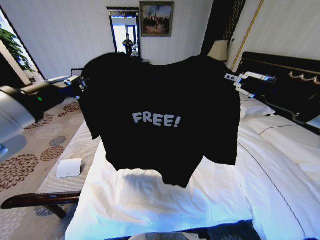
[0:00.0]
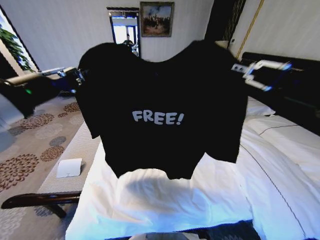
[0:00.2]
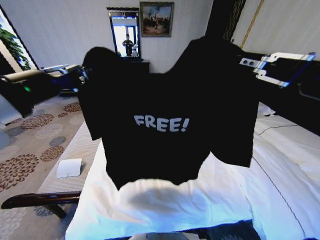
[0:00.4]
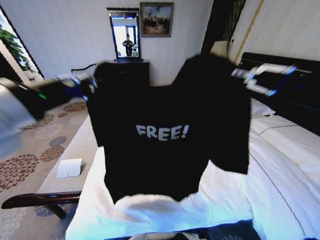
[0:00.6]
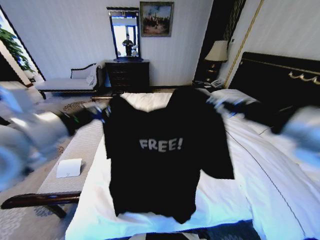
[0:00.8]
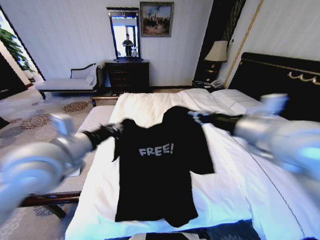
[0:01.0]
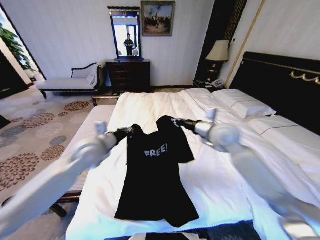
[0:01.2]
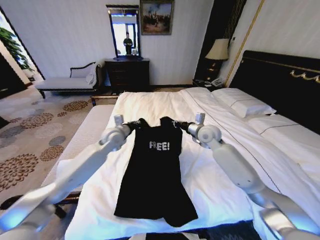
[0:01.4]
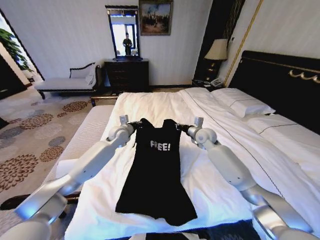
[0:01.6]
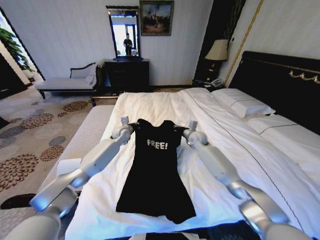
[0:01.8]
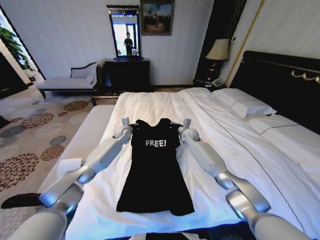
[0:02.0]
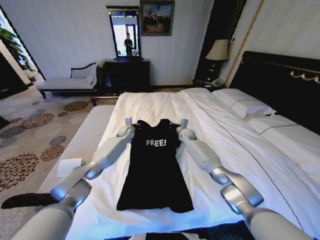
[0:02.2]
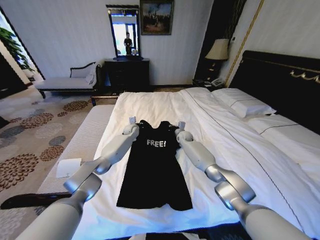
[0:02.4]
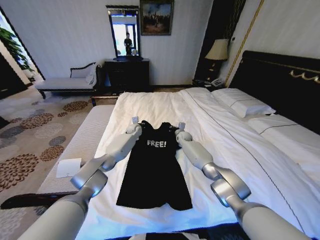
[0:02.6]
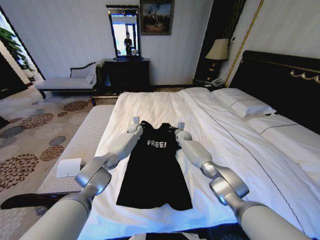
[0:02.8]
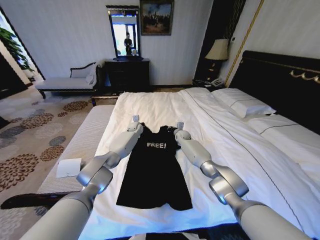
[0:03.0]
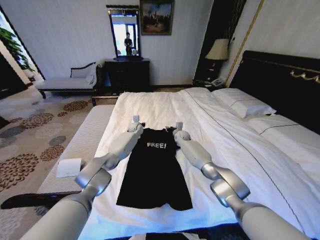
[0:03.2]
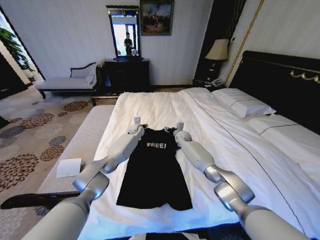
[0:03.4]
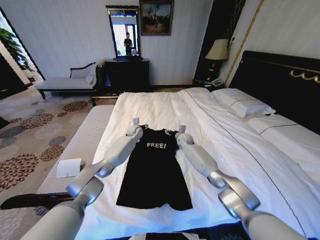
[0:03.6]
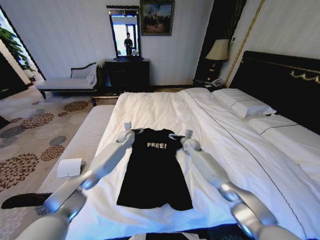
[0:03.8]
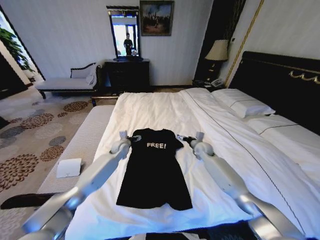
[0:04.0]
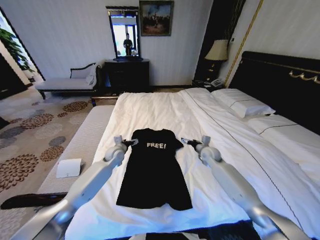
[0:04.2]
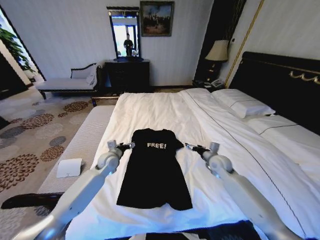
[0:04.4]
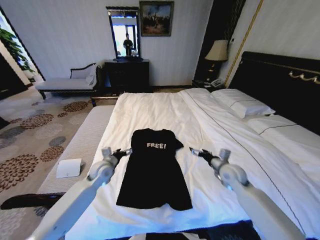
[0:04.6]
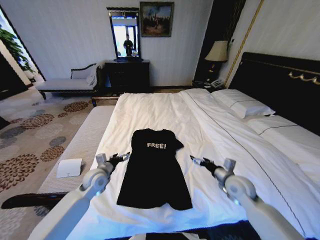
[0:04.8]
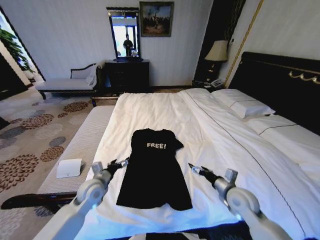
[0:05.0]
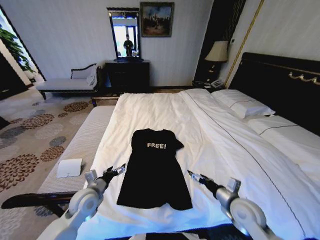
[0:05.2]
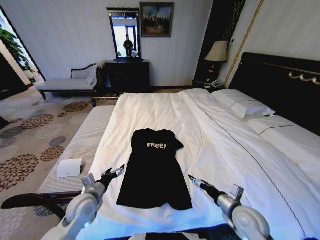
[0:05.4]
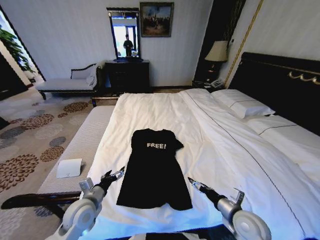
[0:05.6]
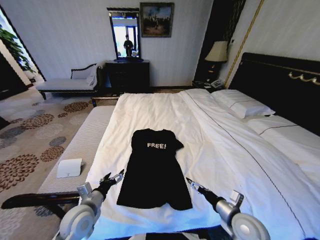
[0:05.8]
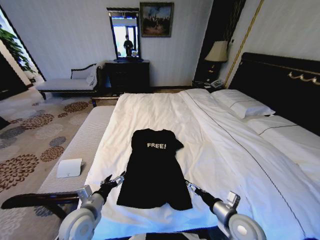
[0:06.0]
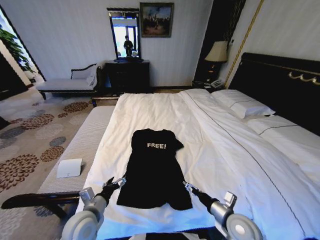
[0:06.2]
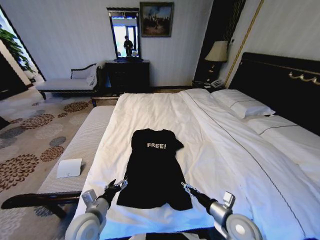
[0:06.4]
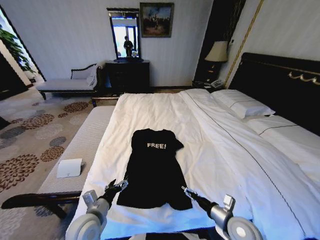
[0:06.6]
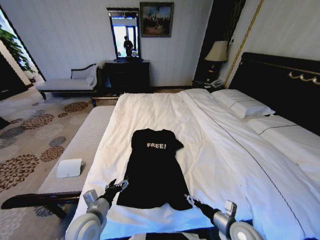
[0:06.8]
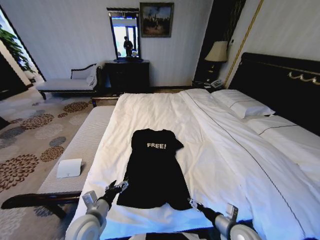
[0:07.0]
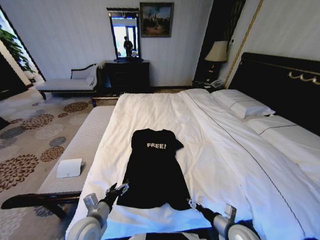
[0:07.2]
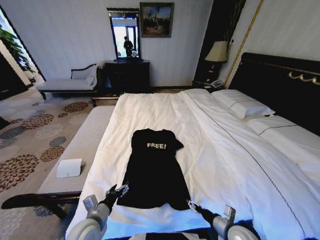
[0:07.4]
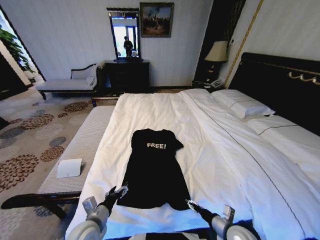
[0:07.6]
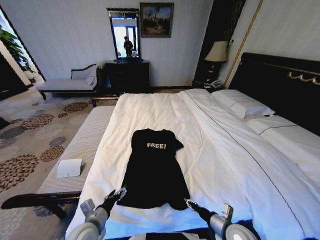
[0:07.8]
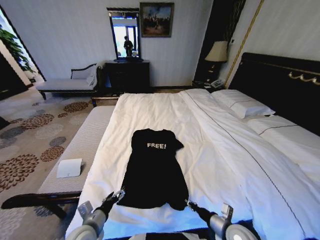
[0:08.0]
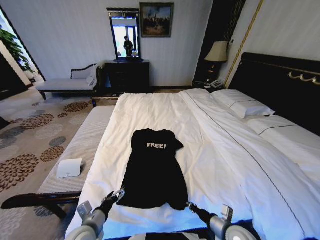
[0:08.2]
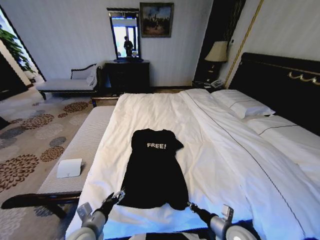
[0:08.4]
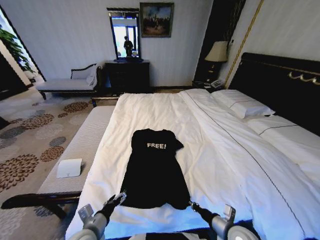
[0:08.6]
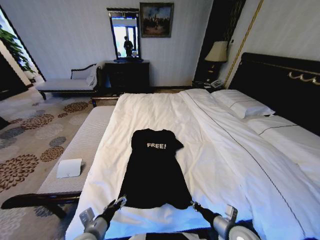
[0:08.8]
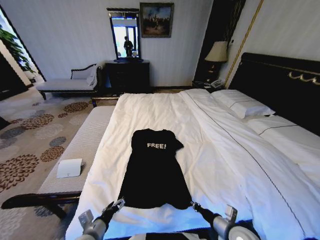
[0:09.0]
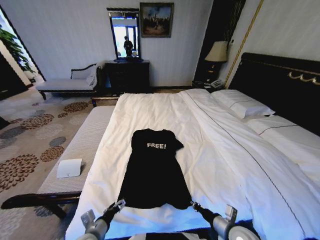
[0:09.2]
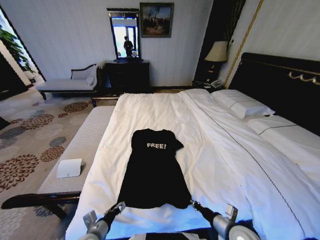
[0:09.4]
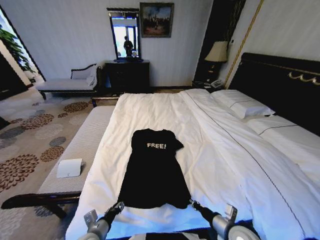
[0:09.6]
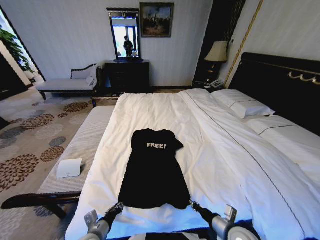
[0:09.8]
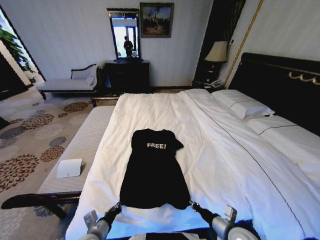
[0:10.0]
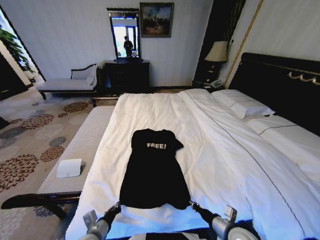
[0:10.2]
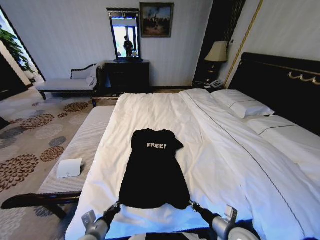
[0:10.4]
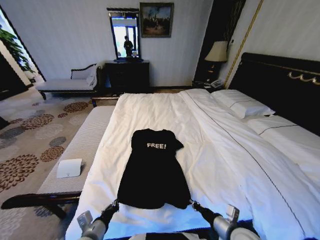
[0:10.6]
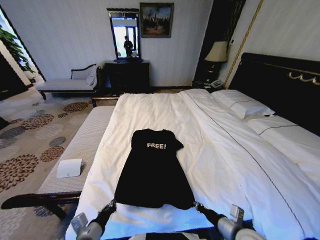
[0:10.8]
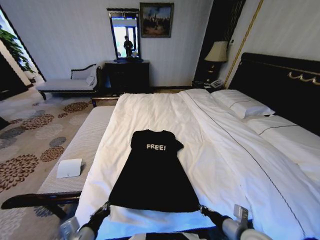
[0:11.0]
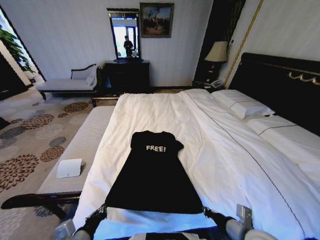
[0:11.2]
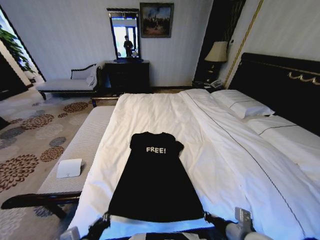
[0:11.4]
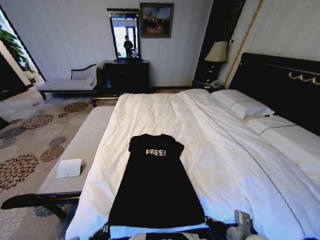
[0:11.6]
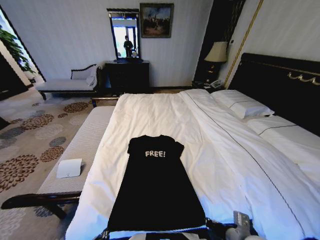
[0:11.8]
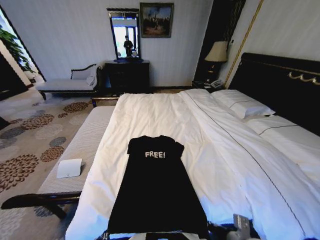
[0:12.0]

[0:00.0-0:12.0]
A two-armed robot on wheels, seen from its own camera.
Task of the whole recording: Fold the clothes on the bed.
0:00.0 to 0:01.6: Both grippers move forward and downward, roughly 40 cm.
0:01.6 to 0:03.0: The right gripper moves forward, downward and to the left, roughly 20 cm; the left gripper shifts approximately 15 cm forward, downward and to the right.
0:03.0 to 0:04.4: The left gripper is displaced backward and to the left by approximately 25 cm, and opens up; the right gripper goes approximately 25 cm backward and to the right, and opens up.
0:04.4 to 0:06.0: Both grippers move backward, roughly 25 cm.
0:06.0 to 0:07.6: The right gripper shifts about 5 cm downward.
0:07.6 to 0:09.0: The right gripper closes its fingers.
0:09.0 to 0:10.4: The left gripper closes its fingers.
0:10.4 to 0:12.0: The left gripper goes roughly 10 cm backward and upward. Meanwhile the right gripper is displaced upward by approximately 5 cm.

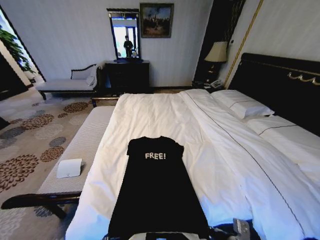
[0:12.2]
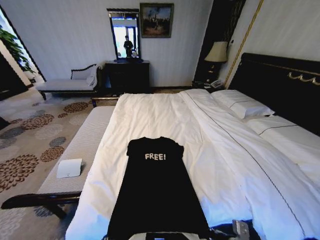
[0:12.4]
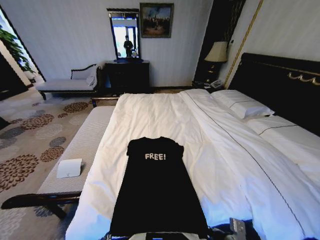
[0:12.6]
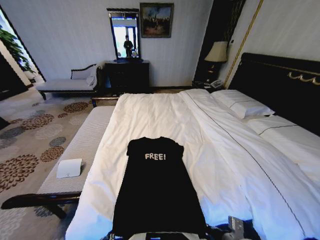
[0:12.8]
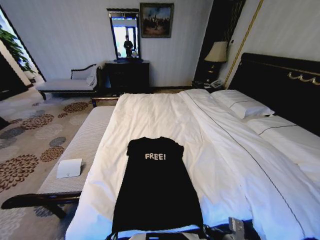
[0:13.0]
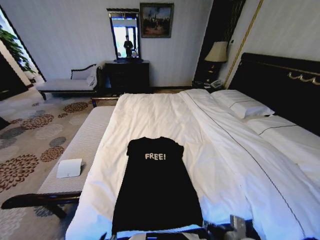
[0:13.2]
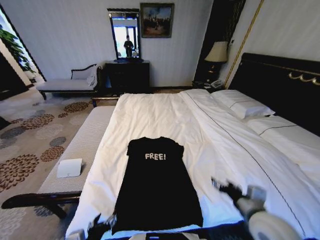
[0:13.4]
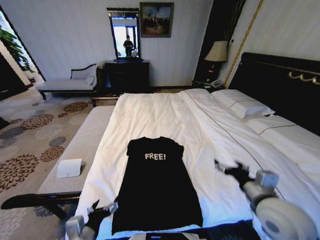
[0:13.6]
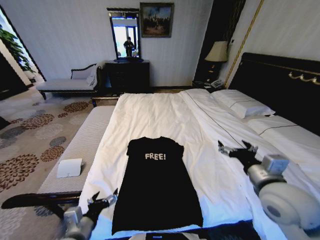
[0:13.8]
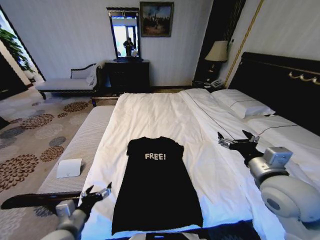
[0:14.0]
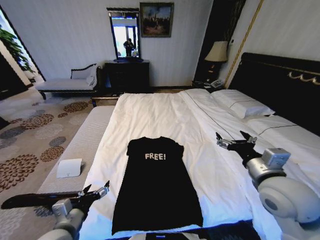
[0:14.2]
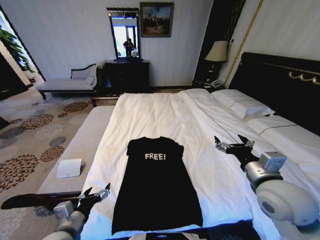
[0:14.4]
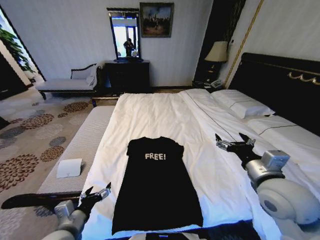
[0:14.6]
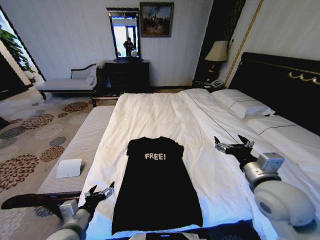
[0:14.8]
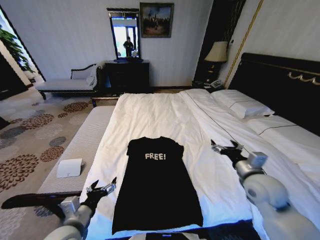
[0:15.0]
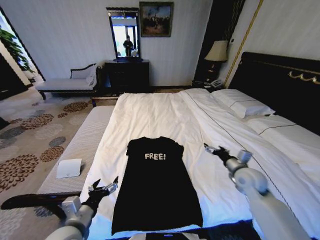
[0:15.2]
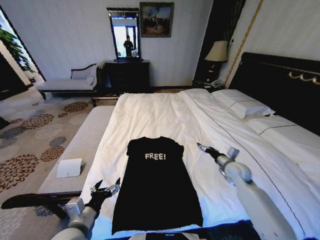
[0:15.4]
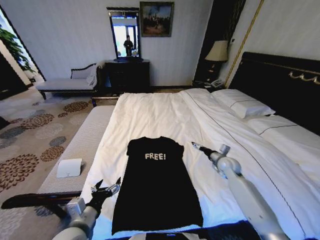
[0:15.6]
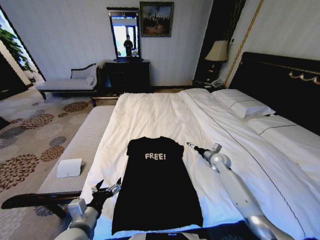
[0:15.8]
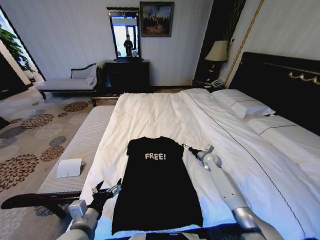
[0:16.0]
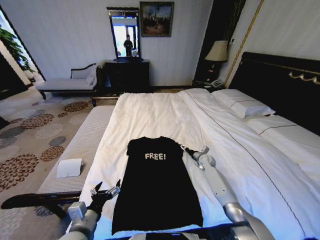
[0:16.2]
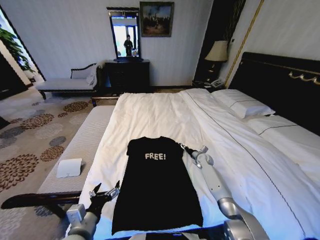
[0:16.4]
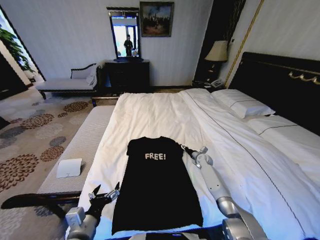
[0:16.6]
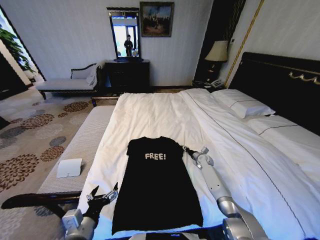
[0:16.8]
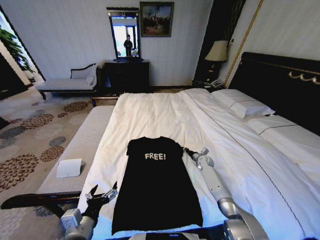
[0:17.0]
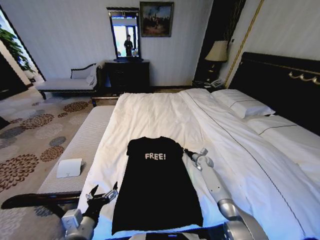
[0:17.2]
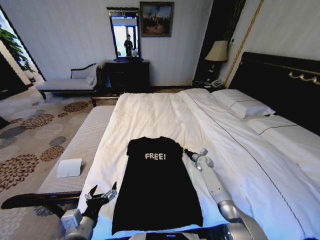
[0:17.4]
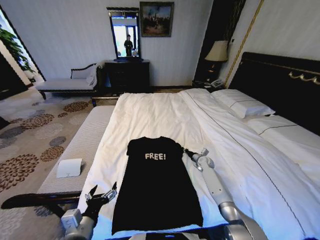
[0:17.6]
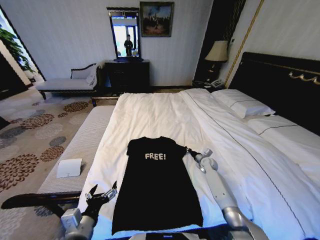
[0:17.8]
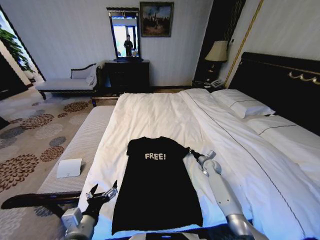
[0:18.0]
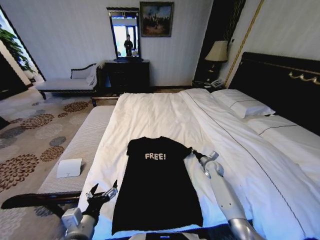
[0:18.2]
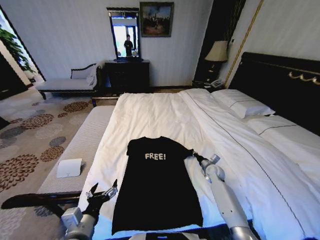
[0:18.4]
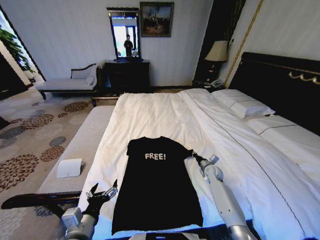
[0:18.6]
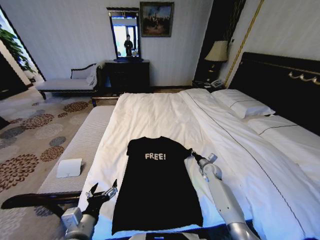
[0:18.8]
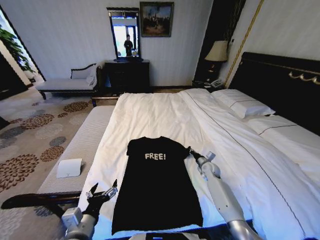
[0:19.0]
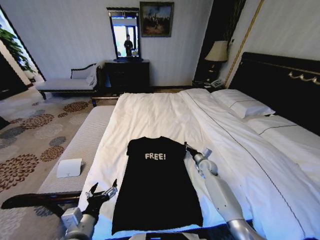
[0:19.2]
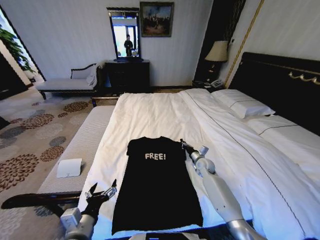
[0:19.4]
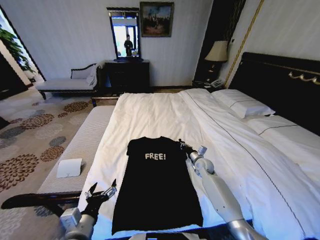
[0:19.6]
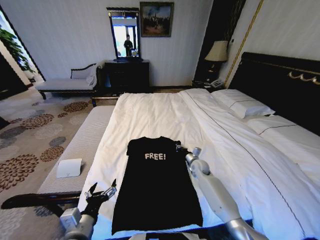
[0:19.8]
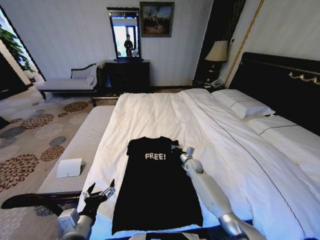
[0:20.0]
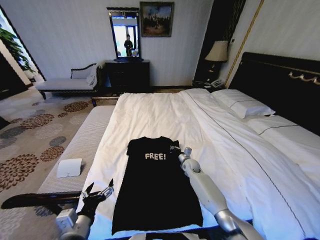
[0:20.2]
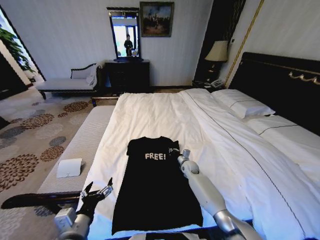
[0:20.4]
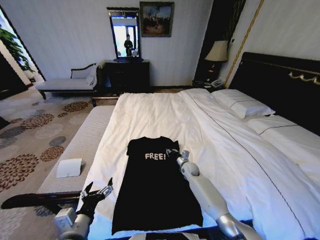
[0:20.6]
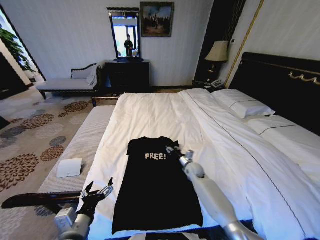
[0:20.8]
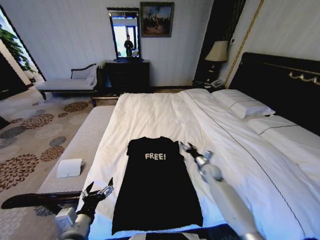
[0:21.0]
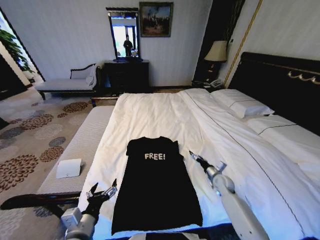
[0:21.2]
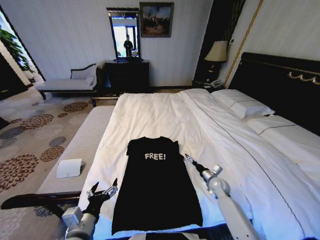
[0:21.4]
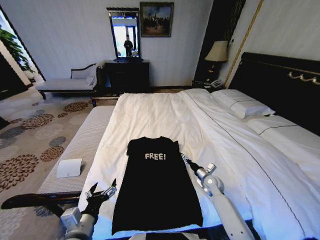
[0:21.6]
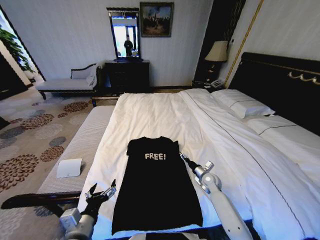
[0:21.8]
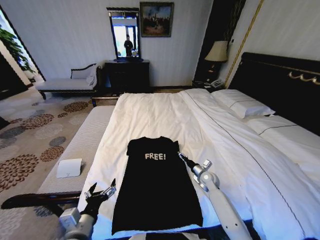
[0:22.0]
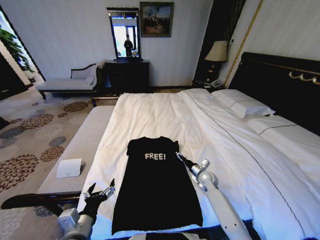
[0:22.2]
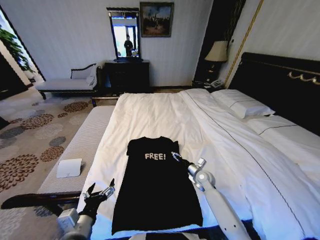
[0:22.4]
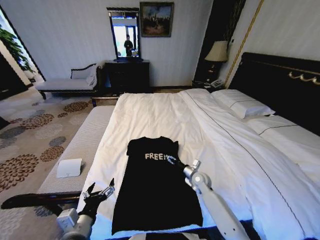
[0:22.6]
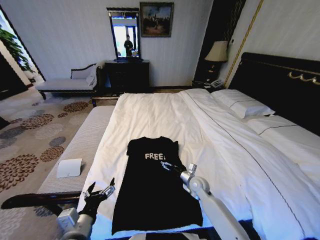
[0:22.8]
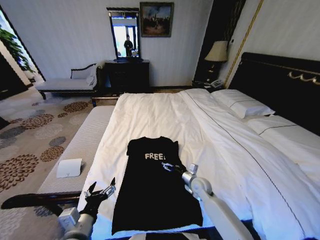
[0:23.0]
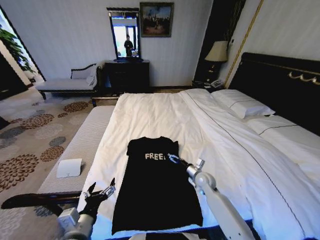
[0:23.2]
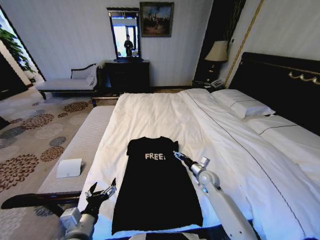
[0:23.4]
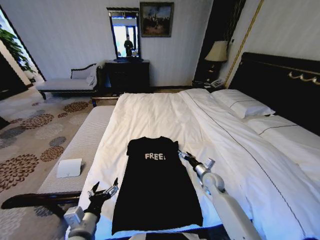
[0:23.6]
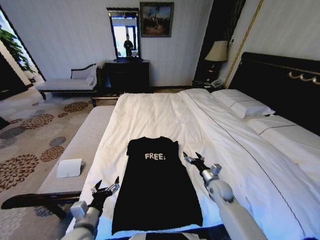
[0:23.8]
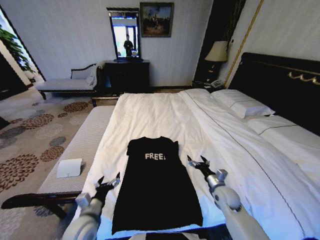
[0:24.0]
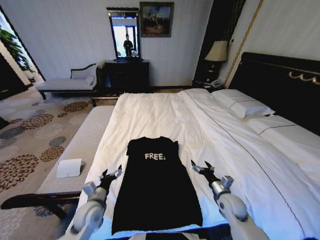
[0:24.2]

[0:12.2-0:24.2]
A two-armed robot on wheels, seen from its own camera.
Task of the whole recording: Fold the clothes on the bed.
0:12.2 to 0:13.8: The right gripper travels upward and forward by some 20 cm, and opens. Meanwhile the left gripper shifts about 10 cm forward, and opens.
0:13.8 to 0:15.2: The right gripper travels downward, forward and to the right by some 15 cm.
0:15.2 to 0:16.6: The right gripper heads forward and downward, covering some 25 cm.
0:16.6 to 0:18.2: The right gripper goes roughly 5 cm backward, and closes its fingers.
0:18.2 to 0:19.8: The right gripper travels to the left by about 10 cm.
0:19.8 to 0:21.2: The right gripper is displaced to the right and backward by approximately 15 cm, and opens up.
0:21.2 to 0:22.6: The right gripper is displaced to the left by approximately 10 cm.
0:22.6 to 0:24.2: The left gripper heads forward and downward, covering about 15 cm. Meanwhile the right gripper travels backward and to the right by about 15 cm.
